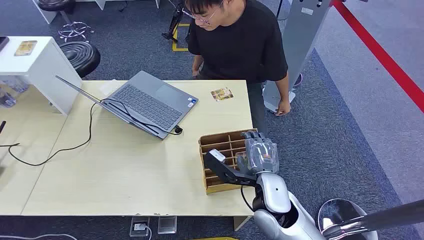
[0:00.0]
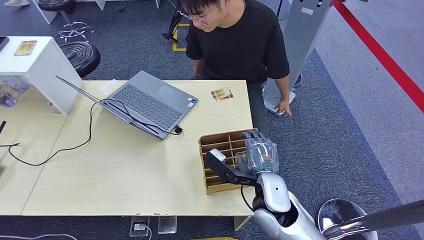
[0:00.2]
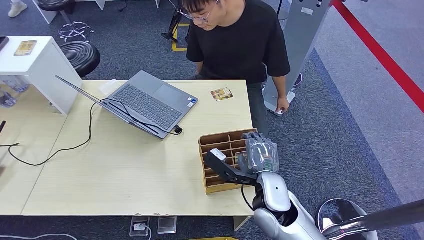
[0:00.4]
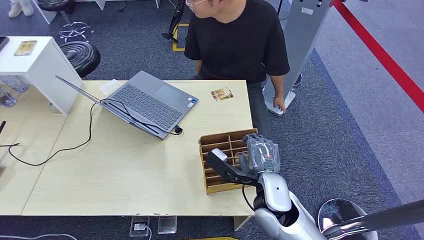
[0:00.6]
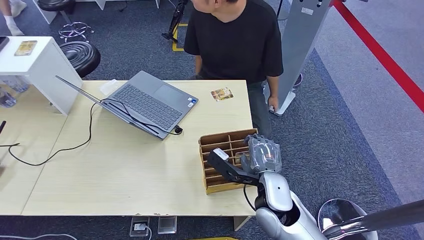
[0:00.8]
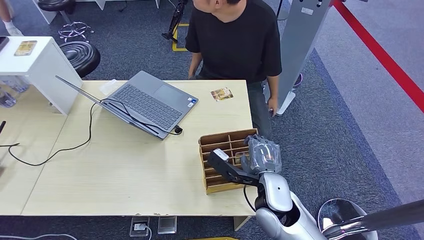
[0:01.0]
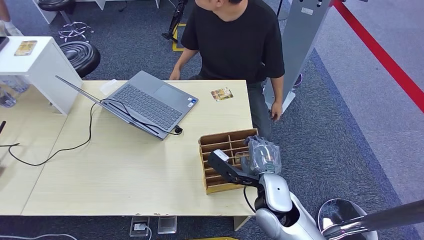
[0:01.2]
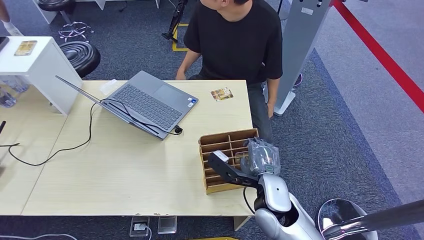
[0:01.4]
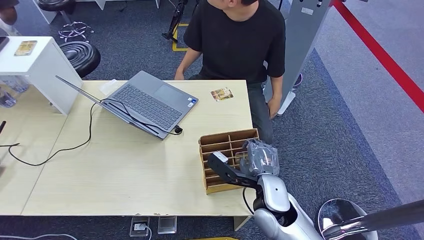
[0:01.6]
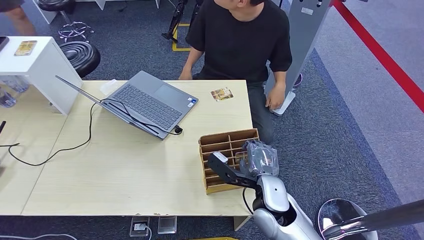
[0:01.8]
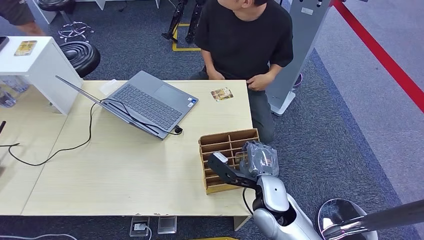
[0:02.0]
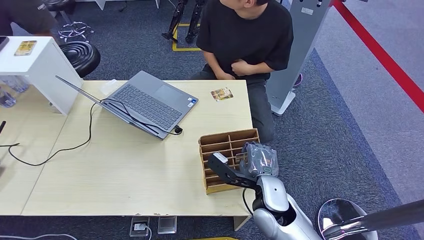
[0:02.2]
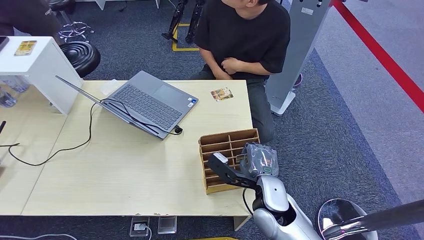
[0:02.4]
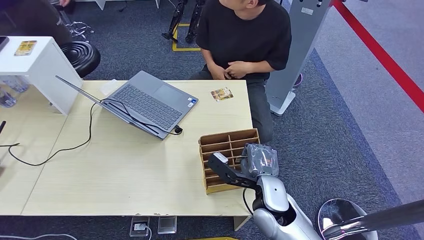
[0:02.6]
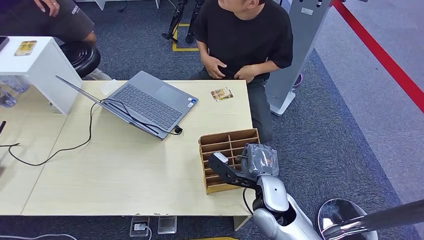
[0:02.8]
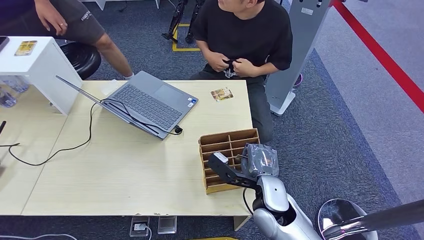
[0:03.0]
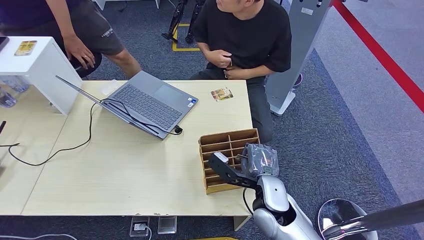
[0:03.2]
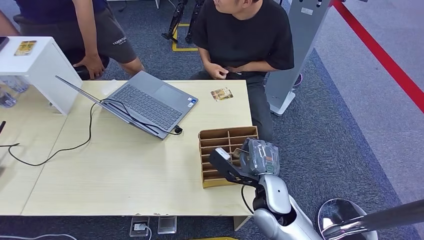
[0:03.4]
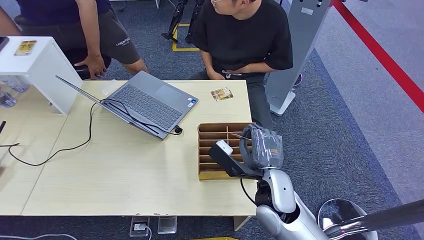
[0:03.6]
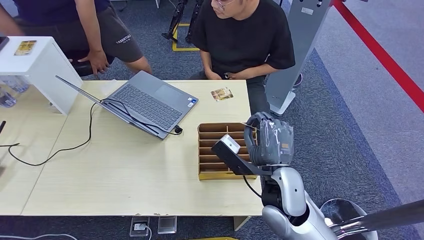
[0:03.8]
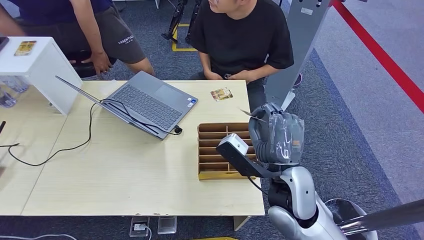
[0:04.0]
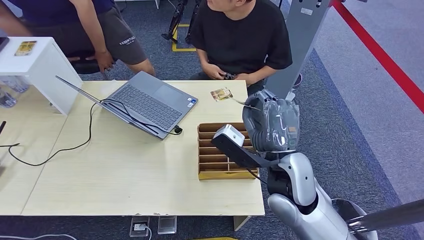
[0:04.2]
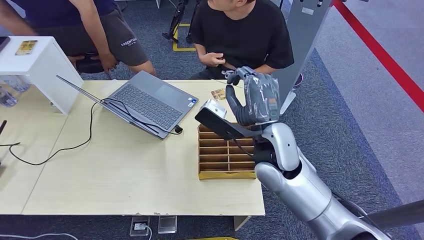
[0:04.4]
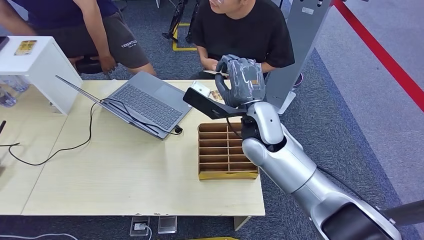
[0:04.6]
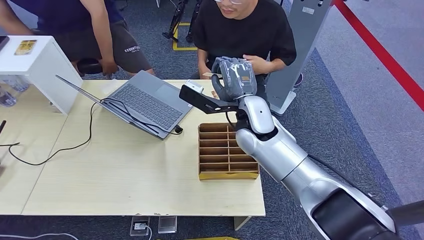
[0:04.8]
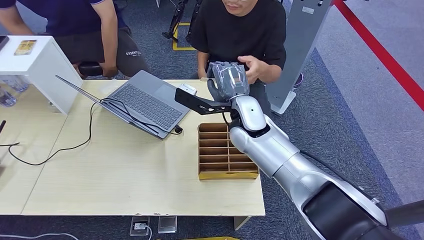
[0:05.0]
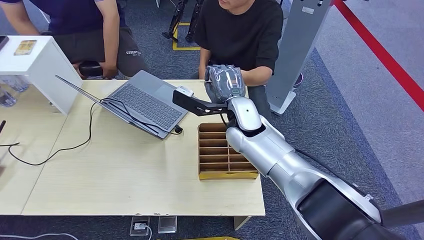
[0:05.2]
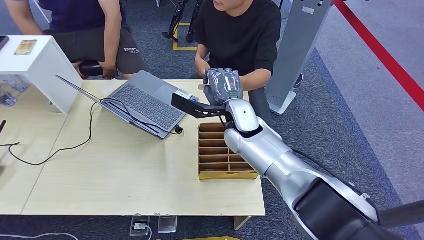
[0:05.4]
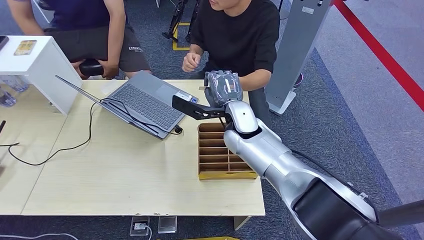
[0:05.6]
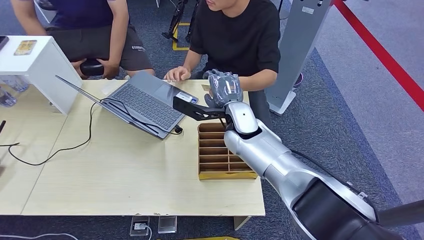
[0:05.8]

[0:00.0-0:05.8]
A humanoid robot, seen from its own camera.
Step, 0:00.0 to 0:03.6: Pick up the room card from the card holder.
Step, 0:04.4 to 0:05.8: Hand the room card to the target.
0:01.4 to 0:02.8: Both hands stay put.
